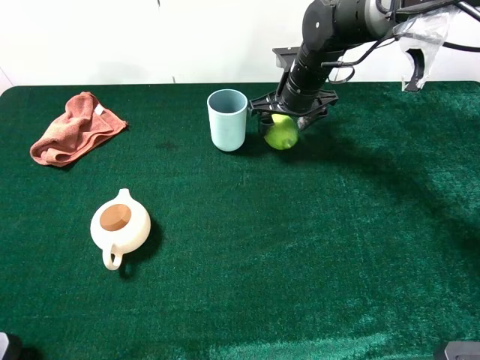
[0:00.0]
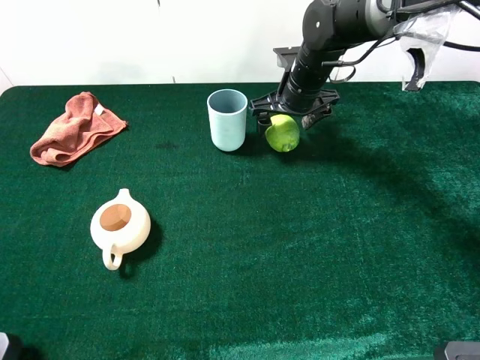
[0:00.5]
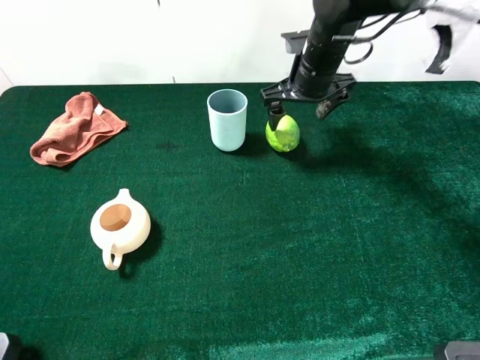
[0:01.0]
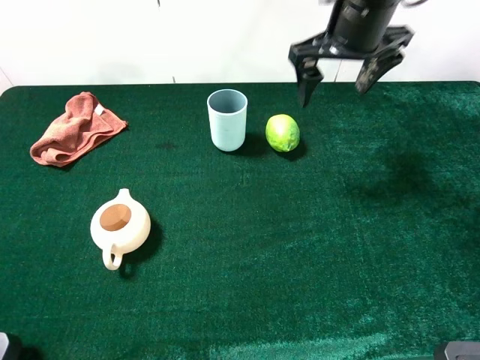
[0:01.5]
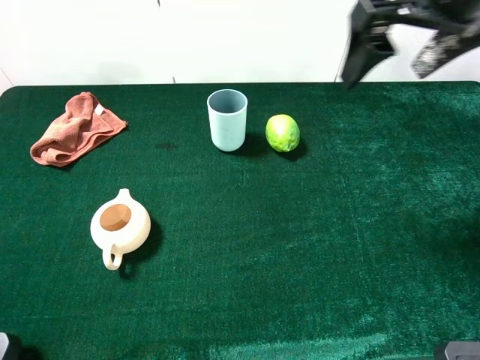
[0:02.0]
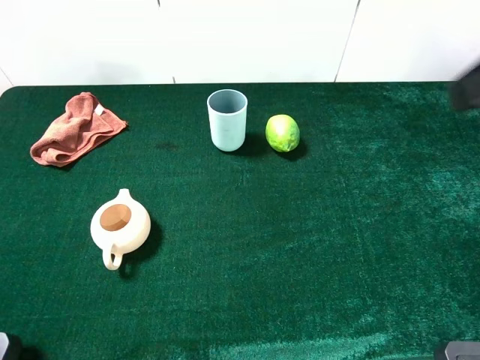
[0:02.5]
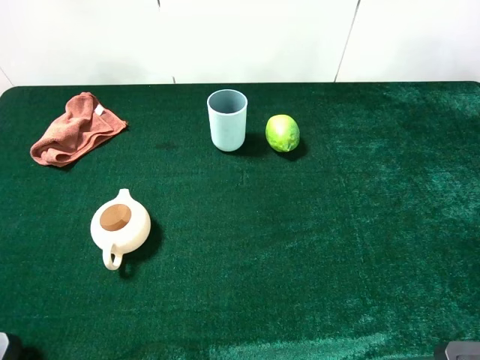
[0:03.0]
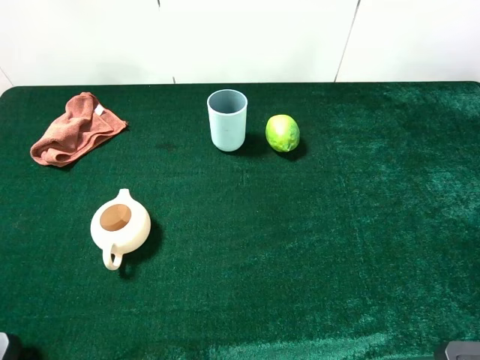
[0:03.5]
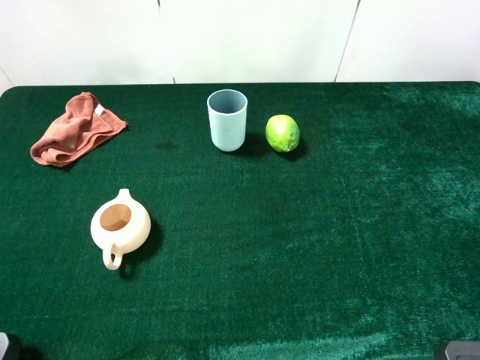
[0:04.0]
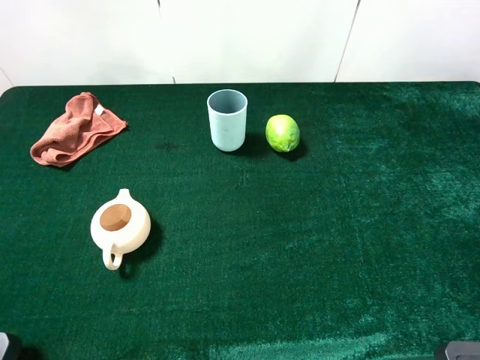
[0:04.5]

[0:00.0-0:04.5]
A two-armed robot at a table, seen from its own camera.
Task of the whole recording: the gripper move the object.
0:00.0 to 0:02.0: The right gripper is displaced upward and backward by some 30 cm.
0:02.0 to 0:04.5: The right gripper shifts roughly 25 cm backward and to the right.
